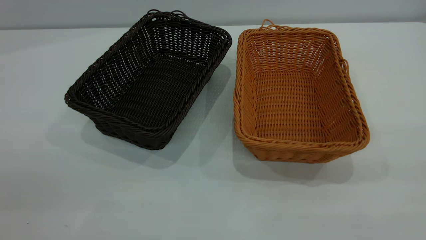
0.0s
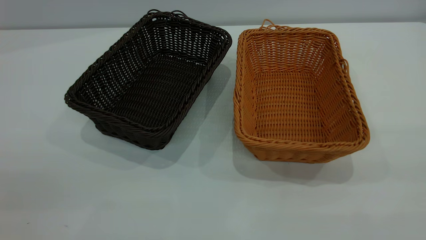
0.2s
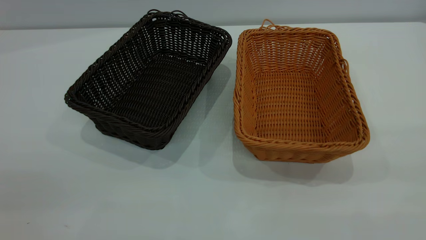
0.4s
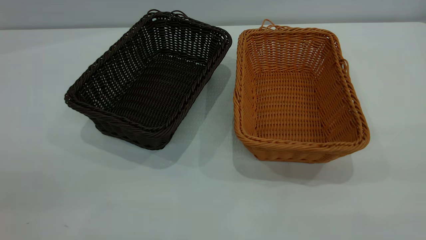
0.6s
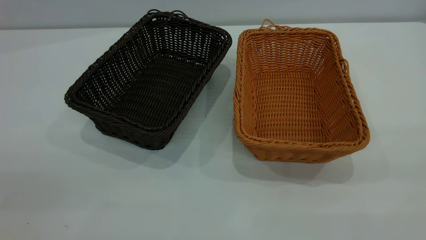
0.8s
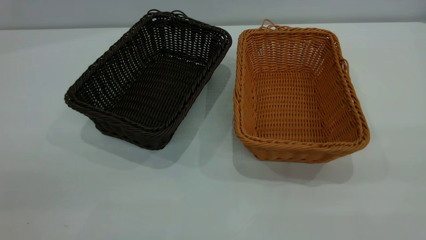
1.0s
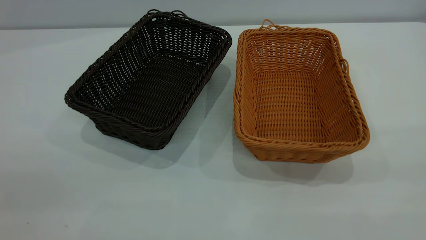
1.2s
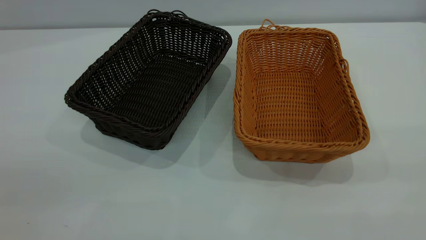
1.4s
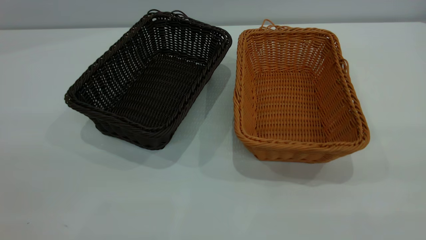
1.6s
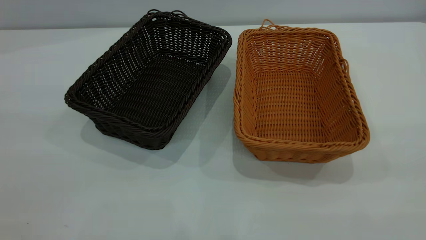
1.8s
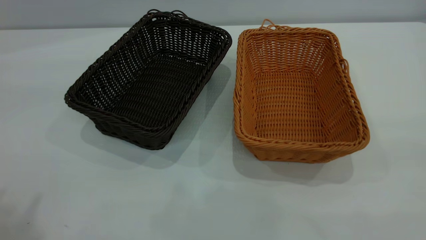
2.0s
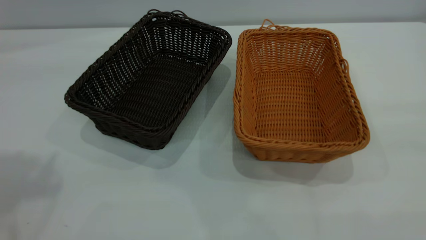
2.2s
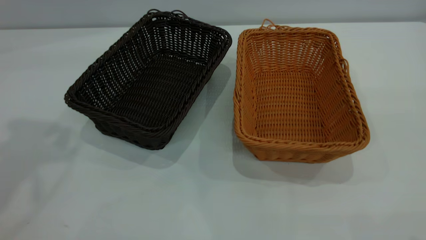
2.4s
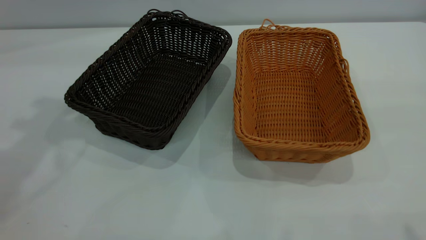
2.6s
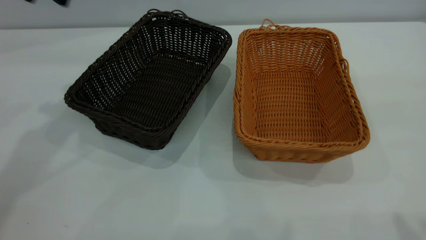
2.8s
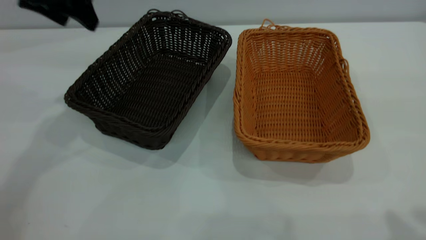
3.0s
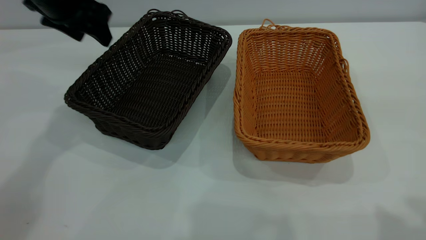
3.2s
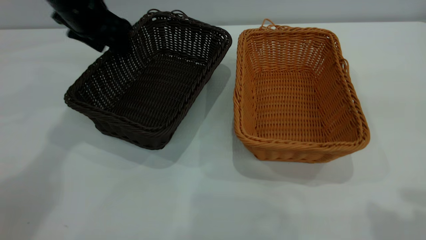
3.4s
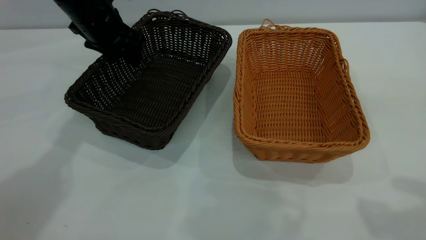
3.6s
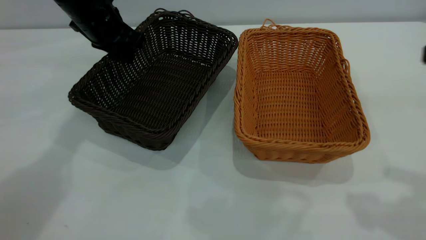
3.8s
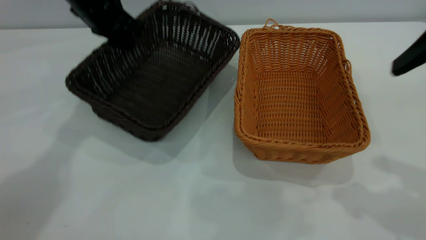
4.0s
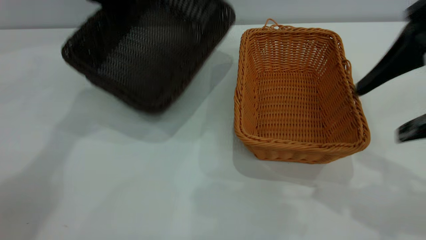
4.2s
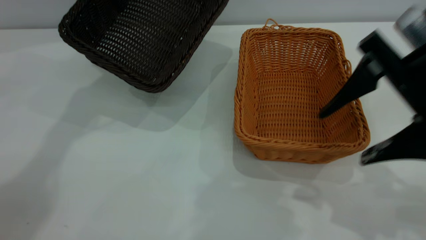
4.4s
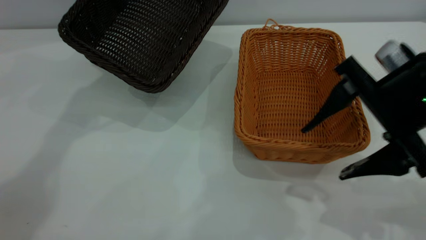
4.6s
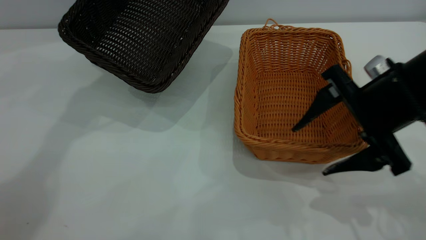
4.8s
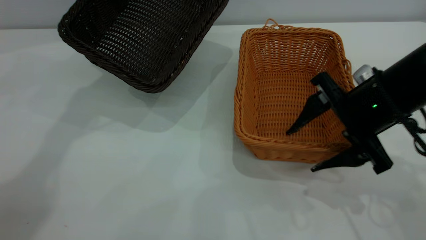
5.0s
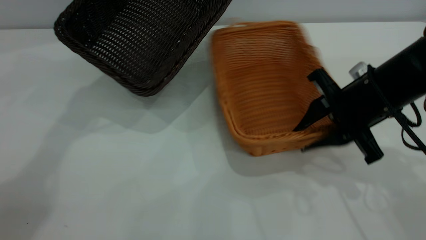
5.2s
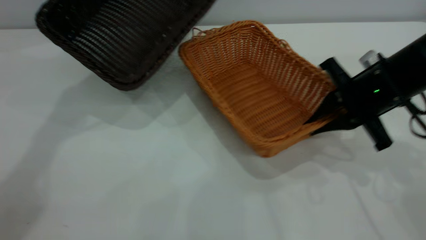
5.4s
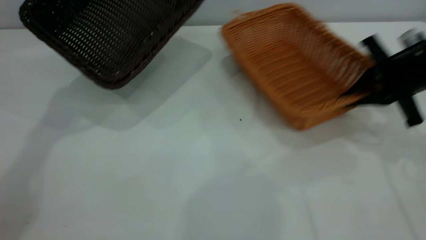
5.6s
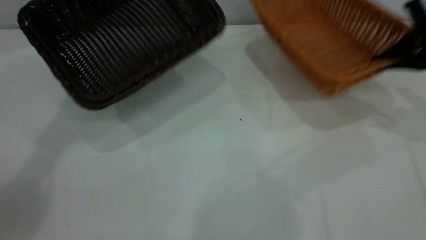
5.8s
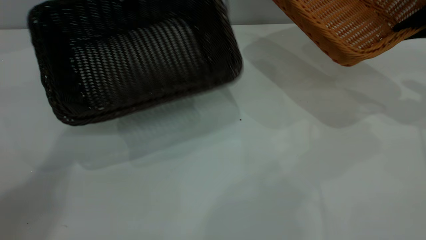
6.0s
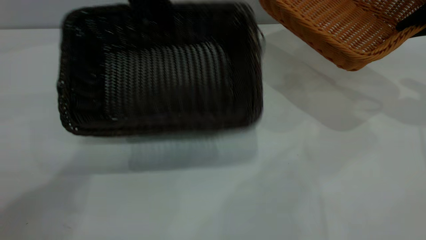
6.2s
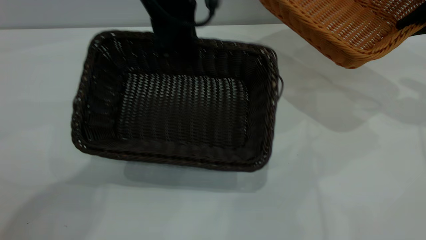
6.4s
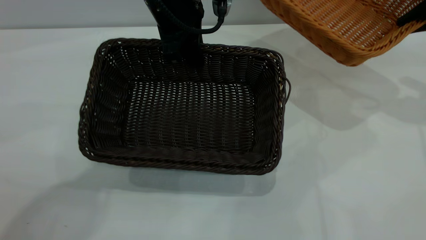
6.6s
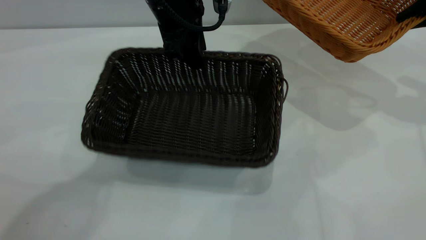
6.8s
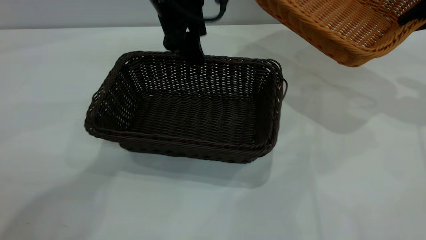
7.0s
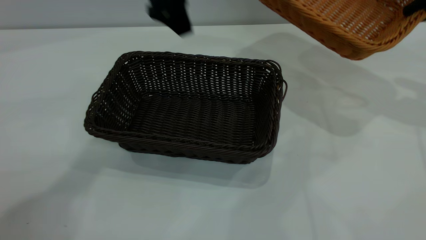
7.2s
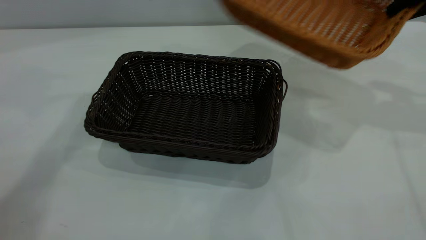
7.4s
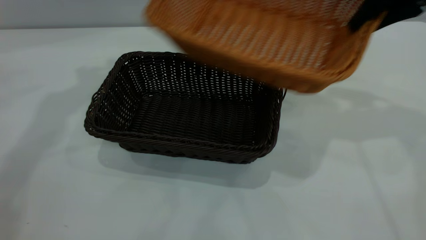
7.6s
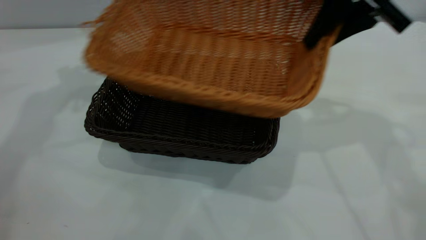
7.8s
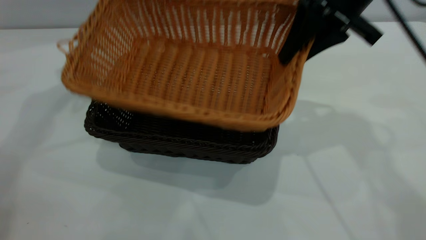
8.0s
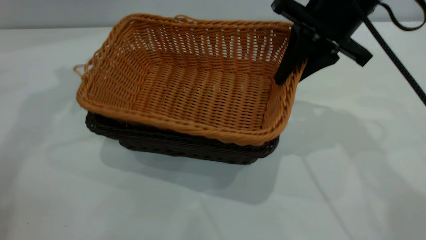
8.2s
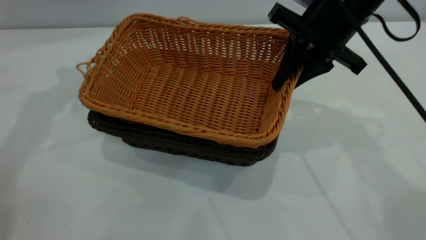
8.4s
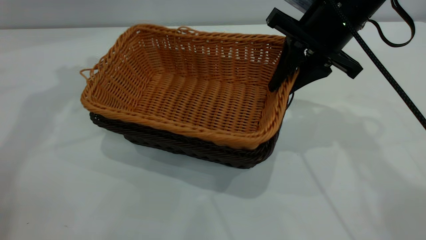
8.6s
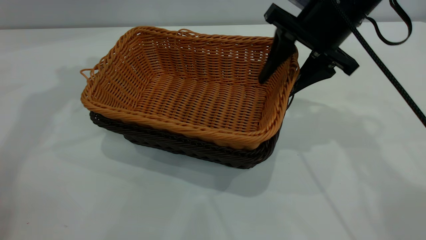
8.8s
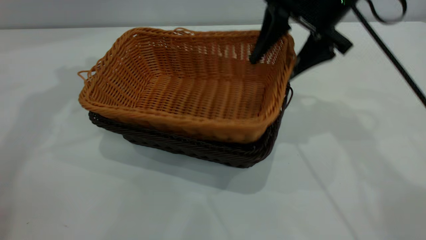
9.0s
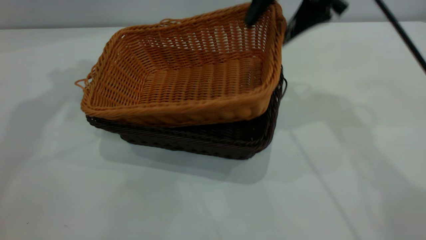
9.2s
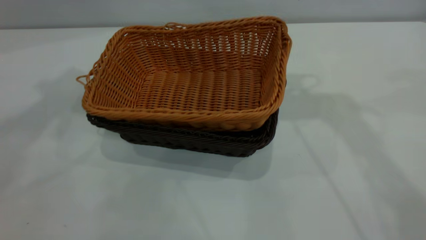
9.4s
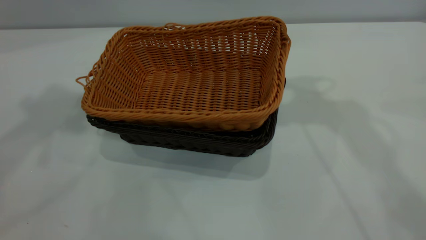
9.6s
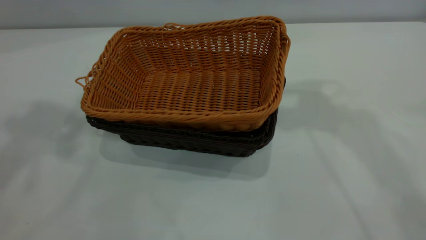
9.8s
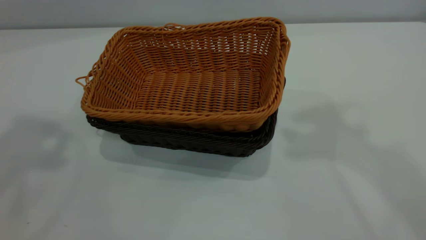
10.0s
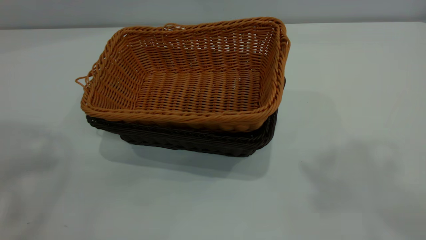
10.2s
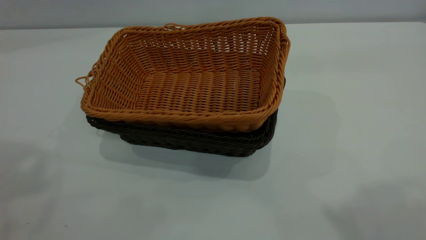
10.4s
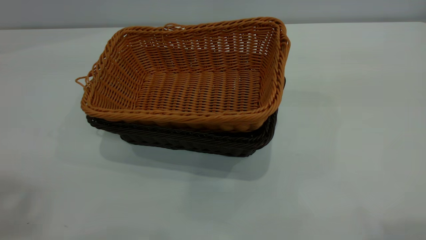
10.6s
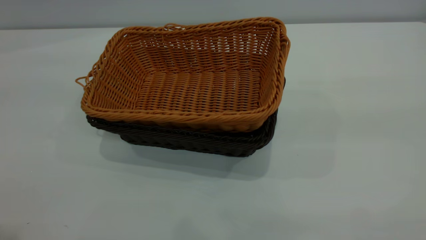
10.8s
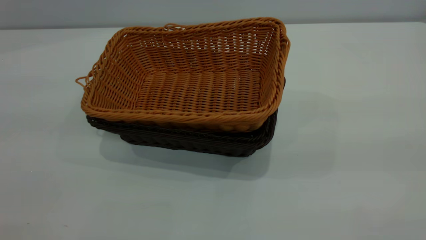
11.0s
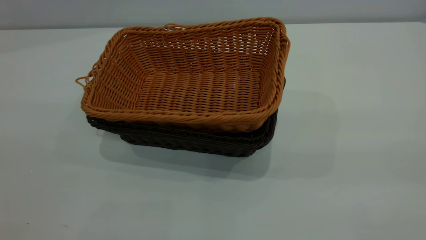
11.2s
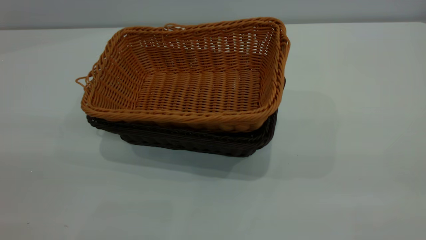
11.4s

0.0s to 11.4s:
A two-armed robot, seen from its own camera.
Task of the whole recording: the left gripper grasp the black basket and place it in the center of the table, the right gripper grasp the brown basket and place it inside the black one.
Step, 0.0s to 5.6s: Pick up the light basket with the right gripper.
Step, 5.8s to 7.0s: Move the dark basket to the center of view.
Step, 7.2s to 9.2s: Place the light basket on the dark basket.
0.0s to 1.4s: The two grippers keep their place.
1.4s to 2.8s: The left gripper goes roughly 40 cm forward.
2.8s to 4.2s: The left gripper travels forward and to the right by roughly 10 cm, goes downward and returns, about 15 cm each way, and closes. Meanwhile the right gripper heads downward and forward, covering about 15 cm.
4.2s to 5.6s: The left gripper moves some 5 cm. Meanwhile the right gripper travels forward, downward and to the right by about 20 cm, and closes up.
5.6s to 7.2s: The right gripper shifts roughly 15 cm upward and to the right. Meanwhile the left gripper travels to the right and backward by some 15 cm, and opens.
7.2s to 8.6s: The two grippers go some 20 cm to the left.
8.6s to 10.0s: The right gripper travels upward by approximately 30 cm, and opens its fingers. Meanwhile the left gripper travels upward and backward by approximately 30 cm.

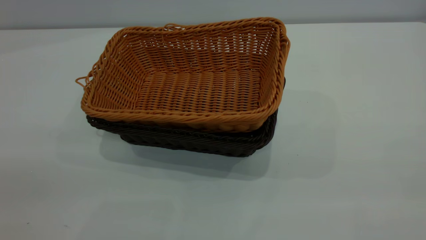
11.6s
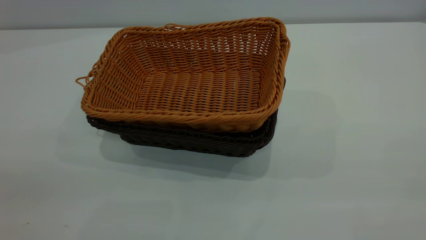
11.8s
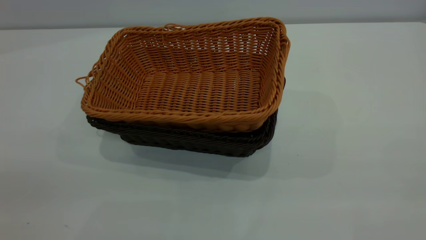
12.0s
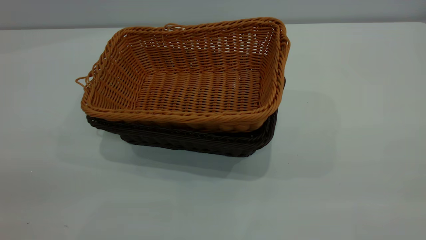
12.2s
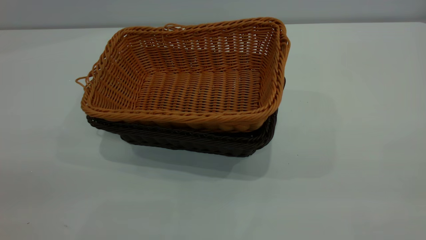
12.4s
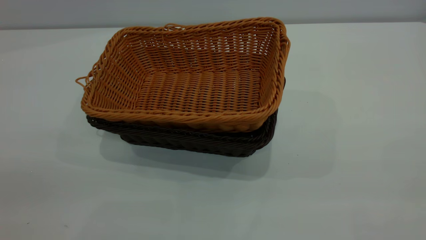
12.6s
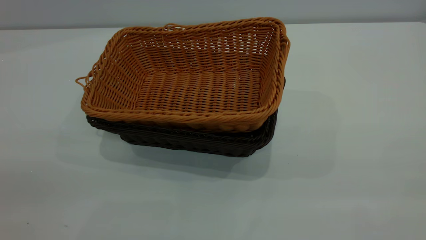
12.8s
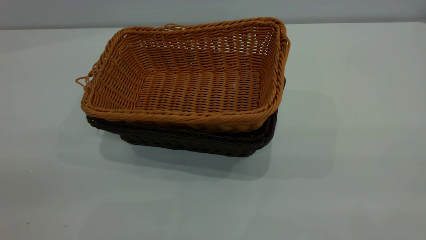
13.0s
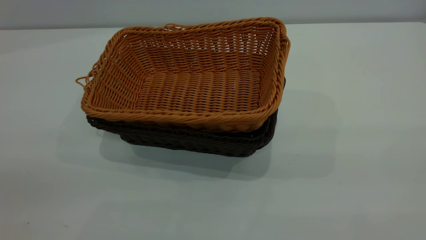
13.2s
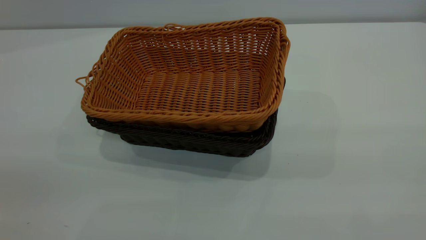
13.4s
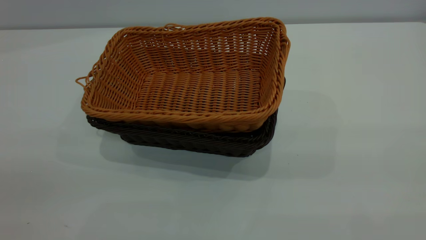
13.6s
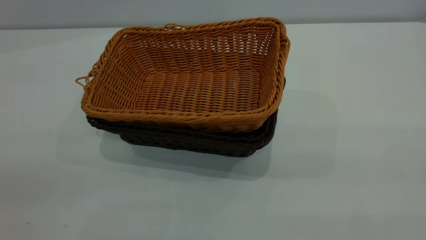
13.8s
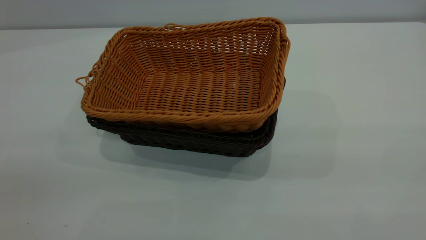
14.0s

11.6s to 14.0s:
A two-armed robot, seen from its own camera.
Task of the whole recording: the left gripper grasp the black basket and place it in the center of the table, the right gripper grasp the brown basket and place it inside the black one.
11.6s to 12.8s: Both grippers stay put.

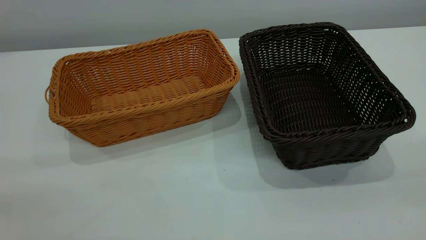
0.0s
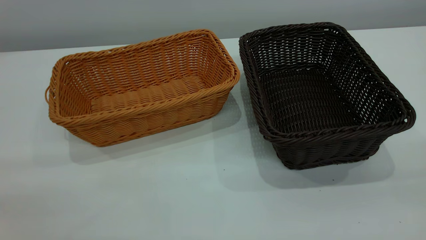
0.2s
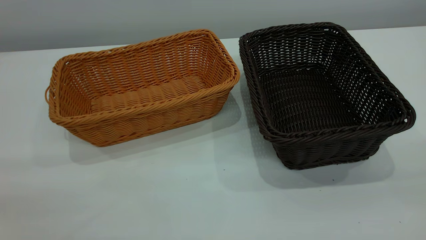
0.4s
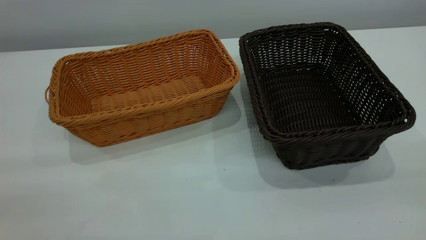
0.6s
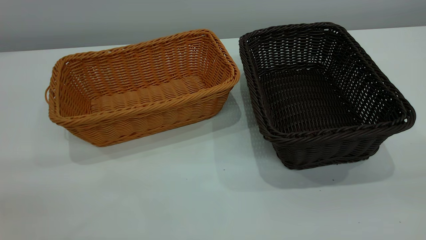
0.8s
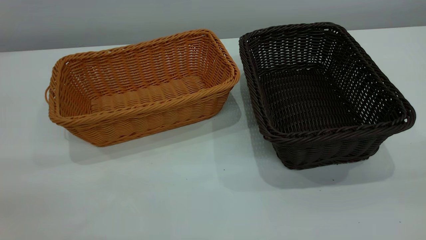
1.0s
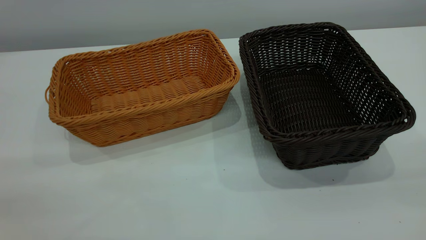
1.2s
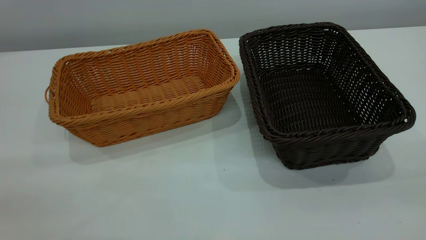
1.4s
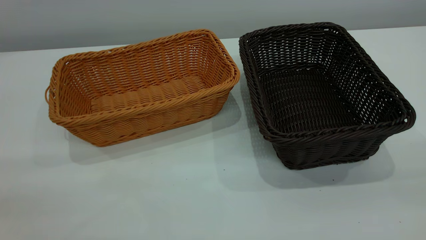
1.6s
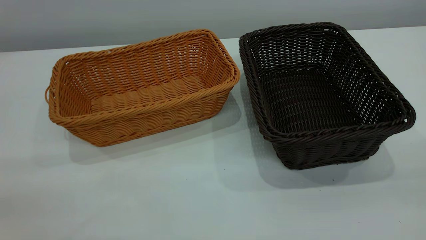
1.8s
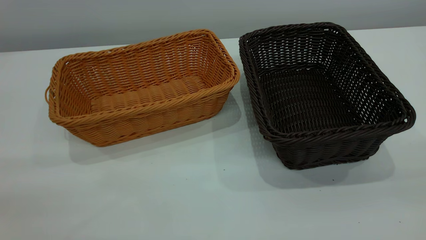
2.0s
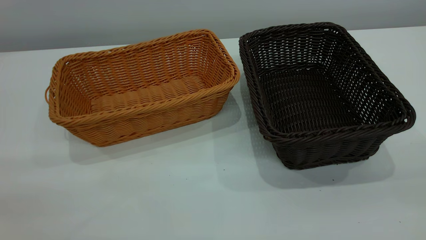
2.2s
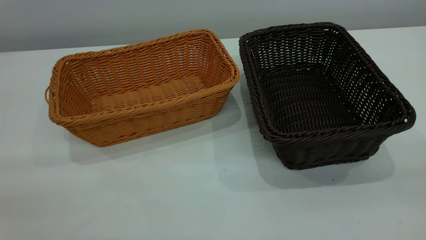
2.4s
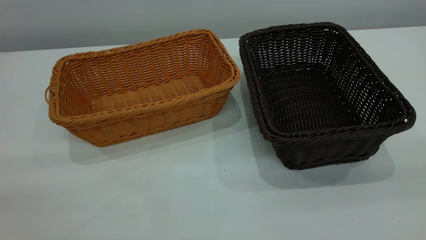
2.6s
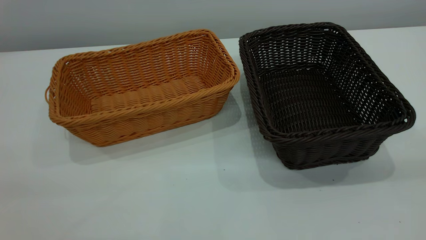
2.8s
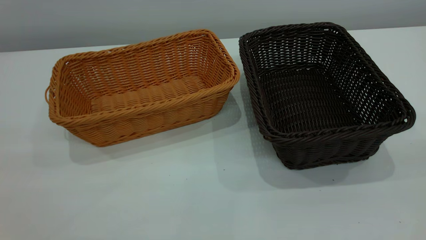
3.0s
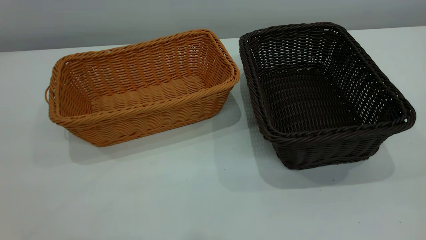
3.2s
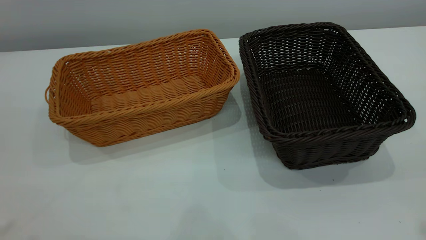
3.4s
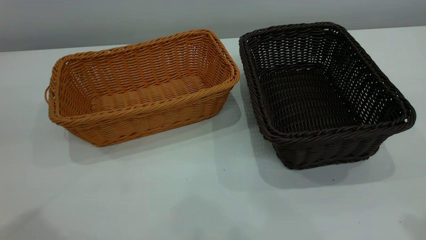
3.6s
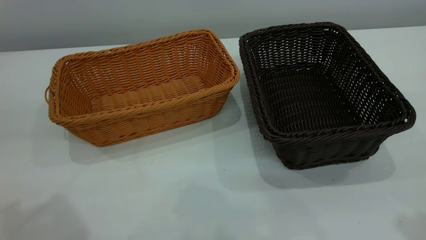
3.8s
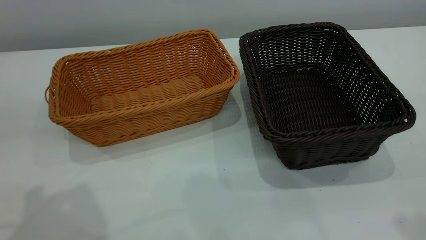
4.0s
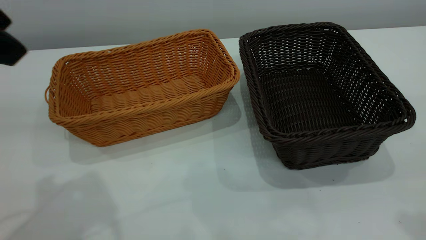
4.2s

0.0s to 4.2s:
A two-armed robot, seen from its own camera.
Task of the whole recording: the left gripper grasp the brown basket and place it in the center of the table, the right gripper grasp the black basket and place it inside the brown one.
0.0s to 1.4s: Neither gripper changes place.
2.8s to 4.2s: The left gripper goes approximately 20 cm forward, and opens up.
